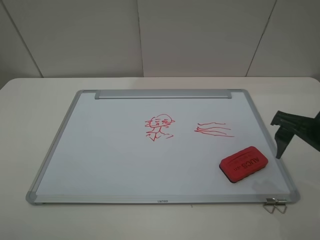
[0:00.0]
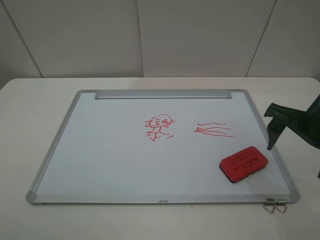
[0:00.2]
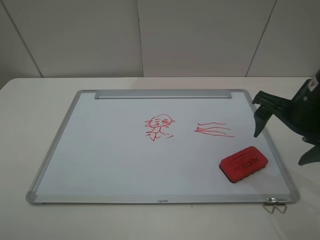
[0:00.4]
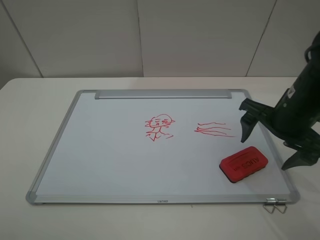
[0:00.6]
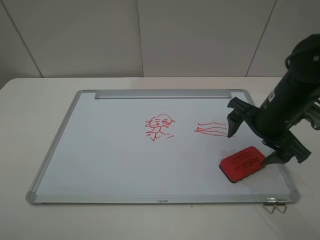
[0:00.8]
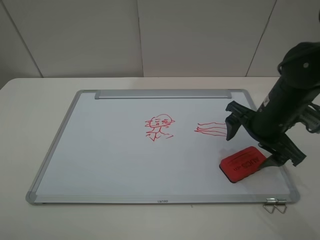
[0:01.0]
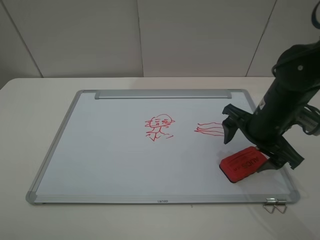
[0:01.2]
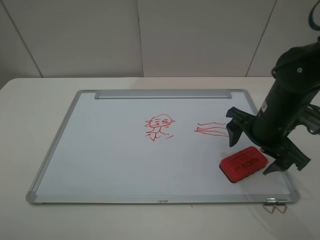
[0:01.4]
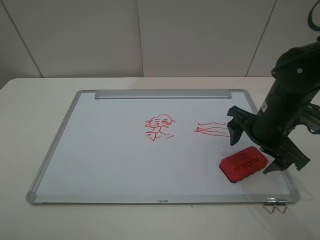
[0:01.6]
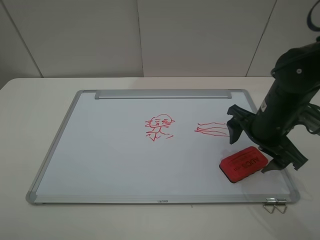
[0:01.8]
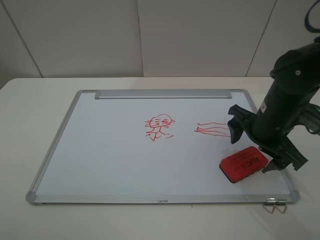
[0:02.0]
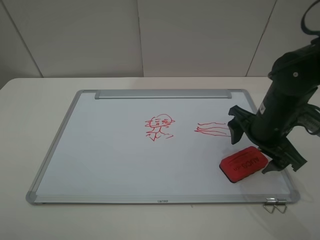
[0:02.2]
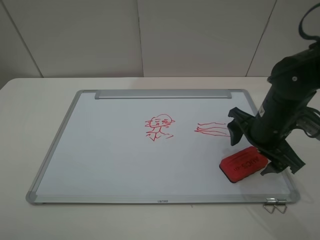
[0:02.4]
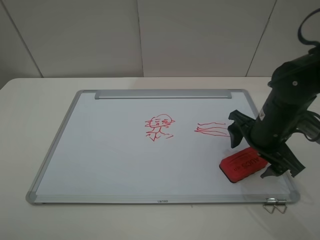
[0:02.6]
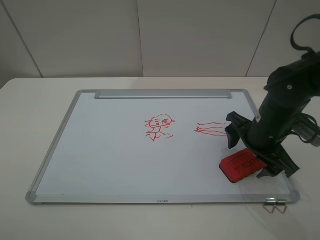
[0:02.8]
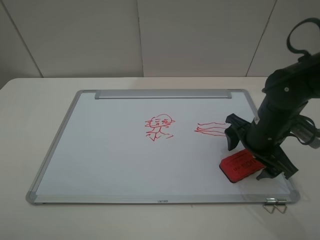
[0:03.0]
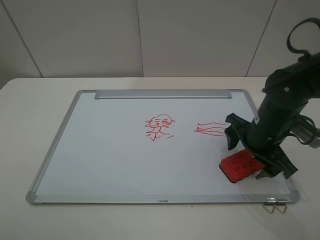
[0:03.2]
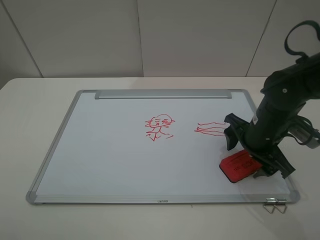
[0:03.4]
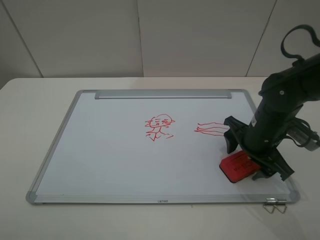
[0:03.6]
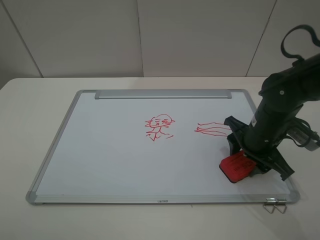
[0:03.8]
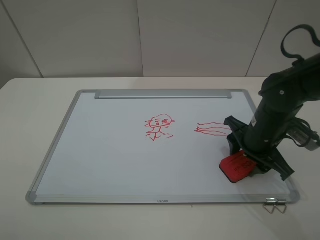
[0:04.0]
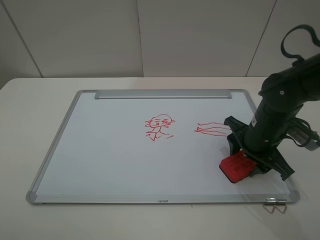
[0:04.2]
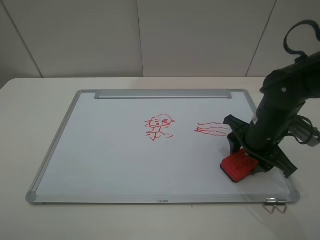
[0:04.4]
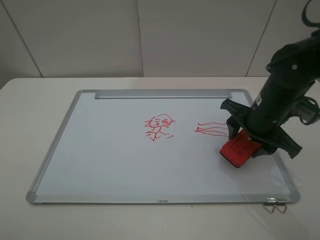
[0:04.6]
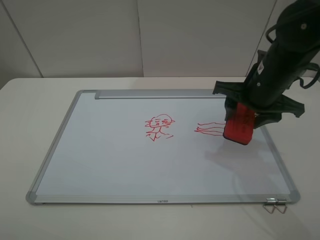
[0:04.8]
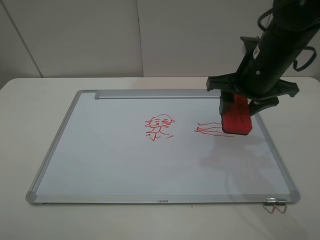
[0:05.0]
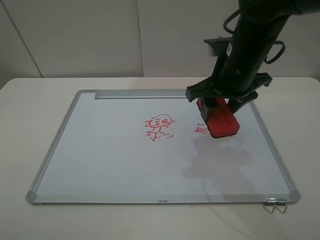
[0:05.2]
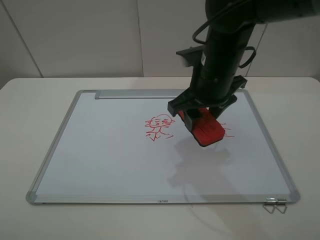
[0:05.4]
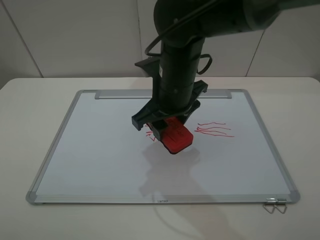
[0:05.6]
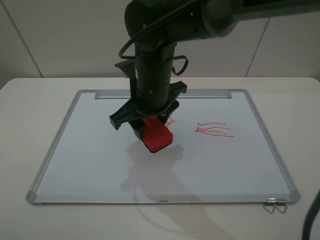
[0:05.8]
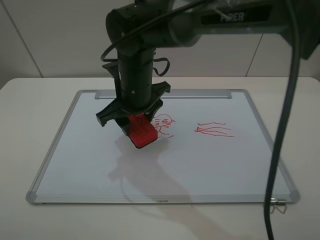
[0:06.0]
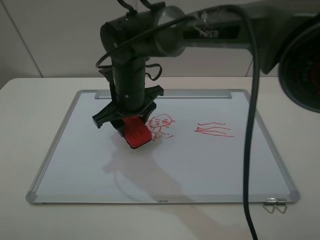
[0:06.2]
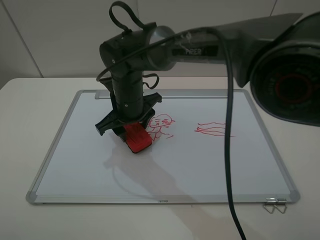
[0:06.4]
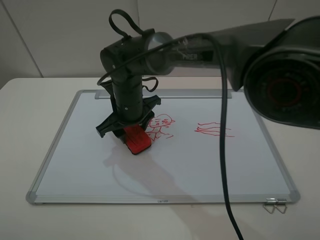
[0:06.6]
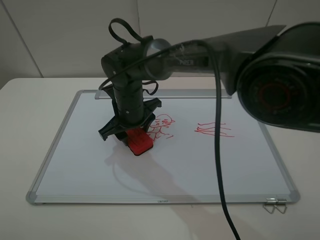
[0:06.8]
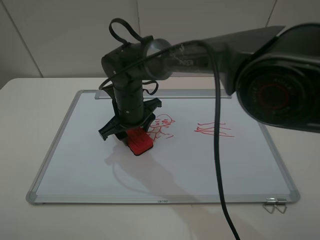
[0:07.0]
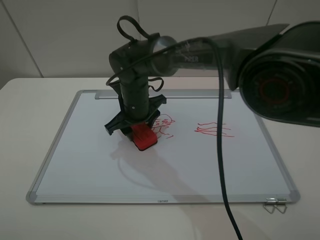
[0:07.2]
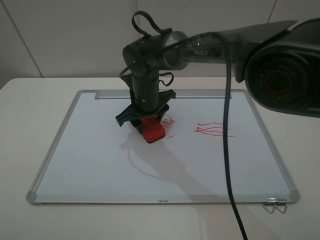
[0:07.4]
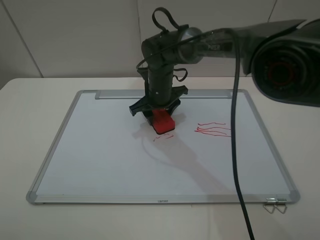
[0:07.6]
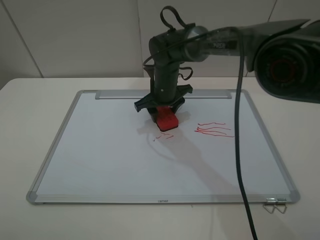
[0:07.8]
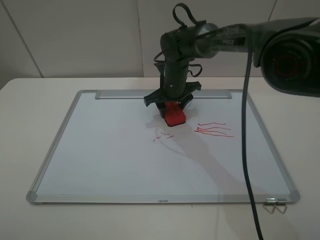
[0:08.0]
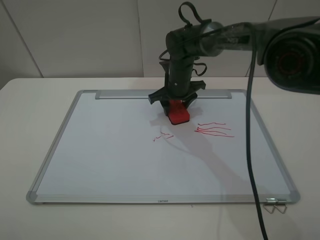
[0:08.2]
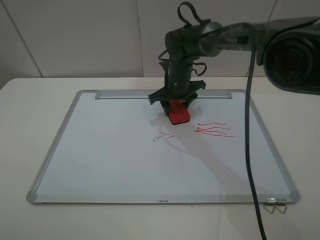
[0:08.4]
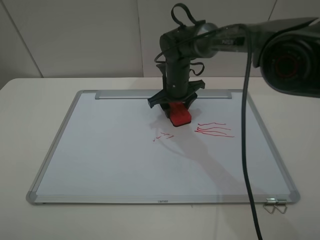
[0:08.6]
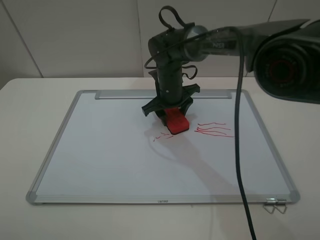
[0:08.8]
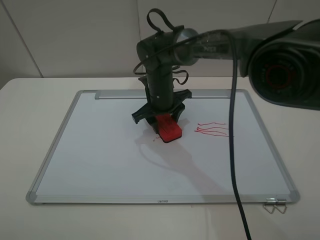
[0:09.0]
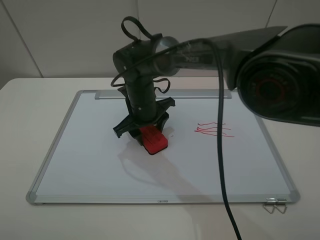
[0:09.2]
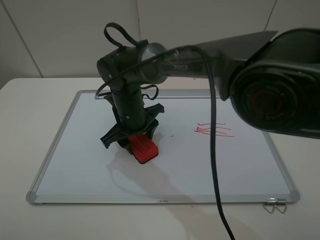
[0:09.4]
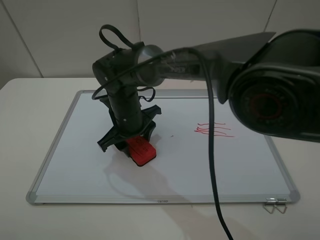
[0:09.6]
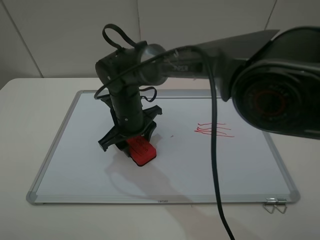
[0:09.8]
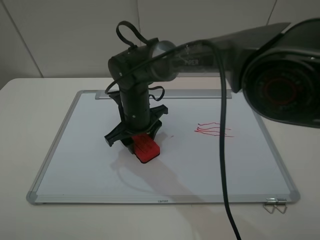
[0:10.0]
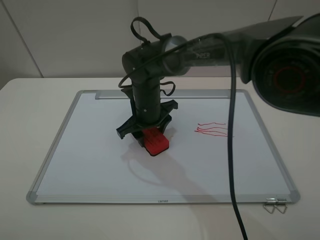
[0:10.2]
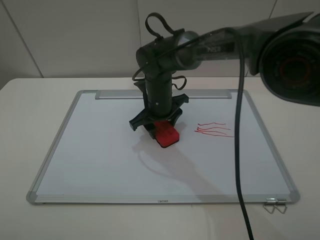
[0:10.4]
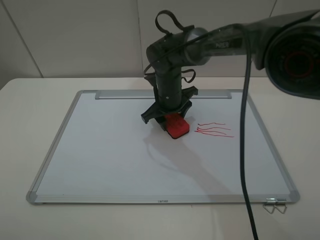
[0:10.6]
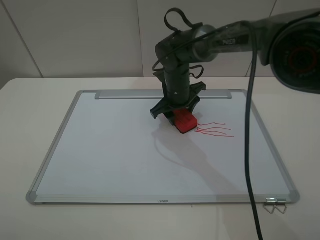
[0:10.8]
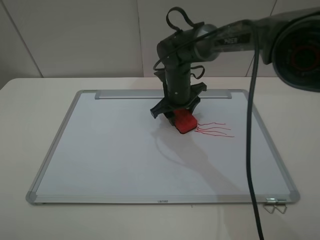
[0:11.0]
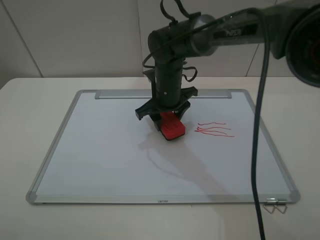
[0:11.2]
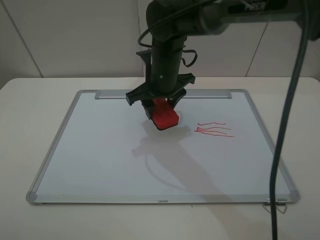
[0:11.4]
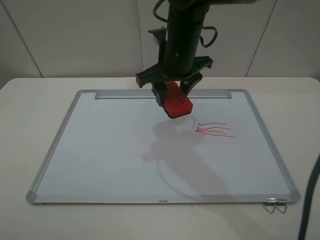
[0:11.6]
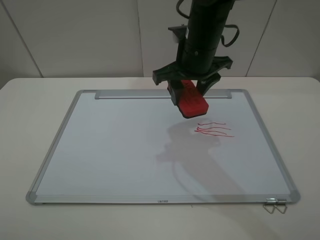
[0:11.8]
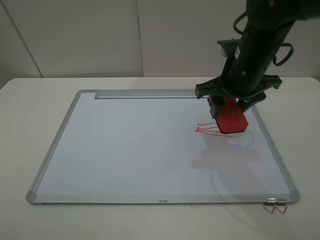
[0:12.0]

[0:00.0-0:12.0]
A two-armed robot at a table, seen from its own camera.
Step, 0:00.0 to 0:03.8: Grasp the eraser with the right gripper.
Step, 0:04.0 to 0:11.4: Grasp the eraser and wipe the blackboard with the right gripper.
0:00.0 to 0:01.6: The right gripper is displaced forward and downward by approximately 10 cm.
0:01.6 to 0:03.0: There are only small adjustments of the grippers.
0:03.0 to 0:04.4: The right gripper closes.
0:04.4 to 0:06.0: The right gripper is displaced to the left by roughly 25 cm.
0:06.0 to 0:07.6: The right gripper shifts some 15 cm forward, downward and to the right.
0:07.6 to 0:09.0: The grippers move only a little.
0:09.0 to 0:10.4: The right gripper moves roughly 5 cm to the left and comes back.
0:10.4 to 0:12.0: The right gripper shifts some 20 cm to the right, upward and backward.

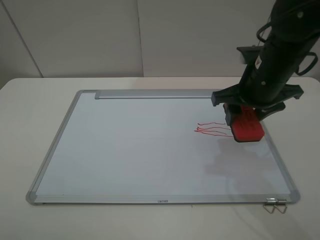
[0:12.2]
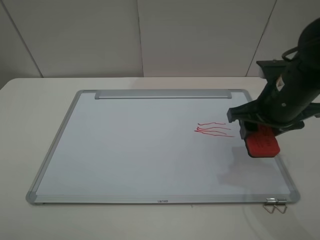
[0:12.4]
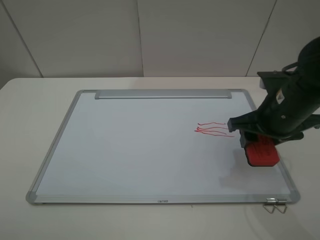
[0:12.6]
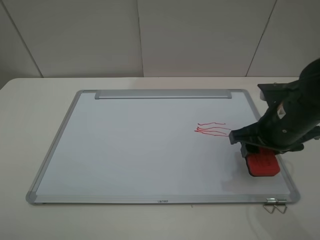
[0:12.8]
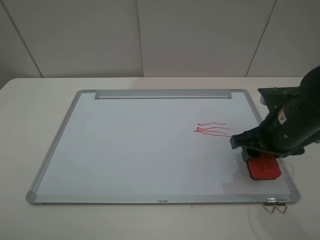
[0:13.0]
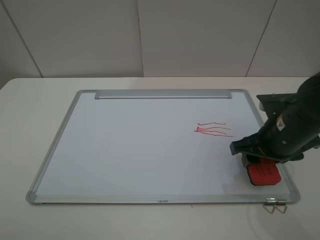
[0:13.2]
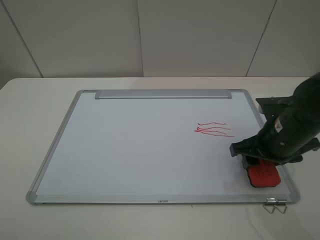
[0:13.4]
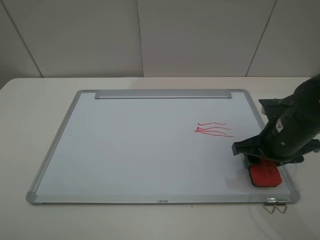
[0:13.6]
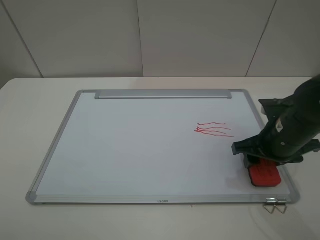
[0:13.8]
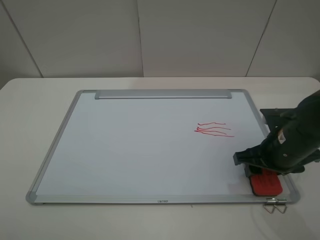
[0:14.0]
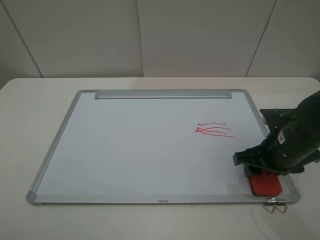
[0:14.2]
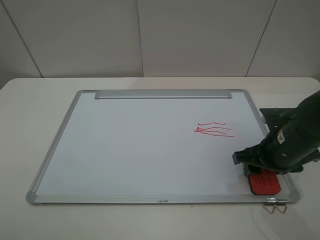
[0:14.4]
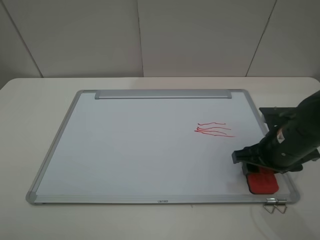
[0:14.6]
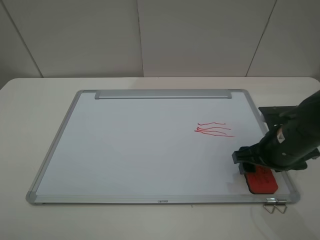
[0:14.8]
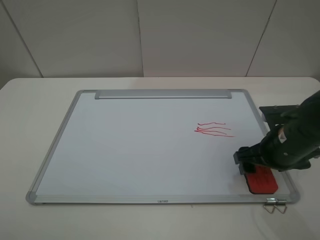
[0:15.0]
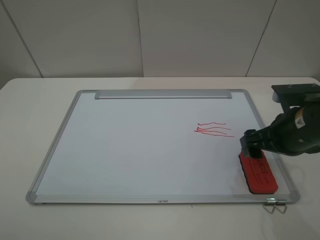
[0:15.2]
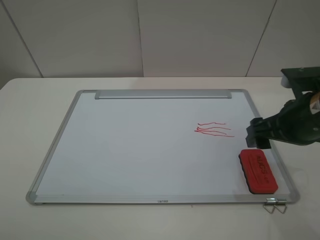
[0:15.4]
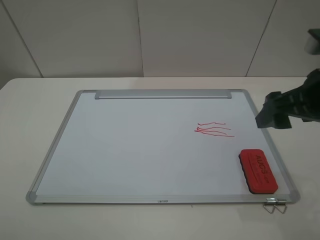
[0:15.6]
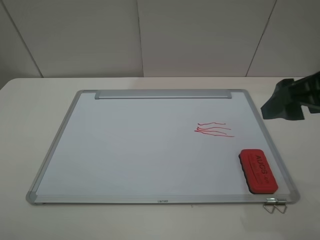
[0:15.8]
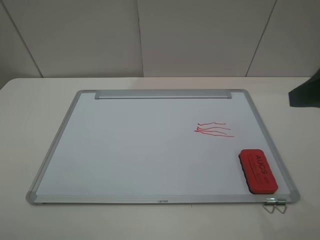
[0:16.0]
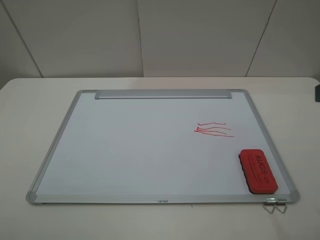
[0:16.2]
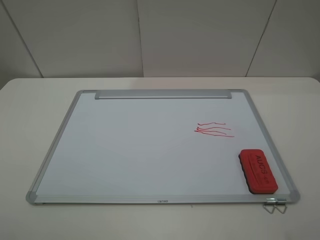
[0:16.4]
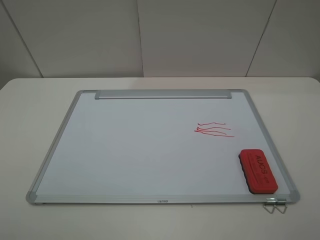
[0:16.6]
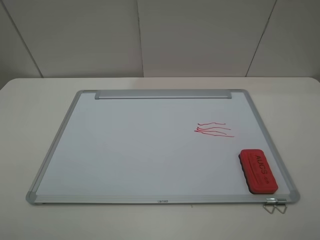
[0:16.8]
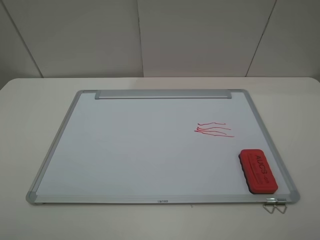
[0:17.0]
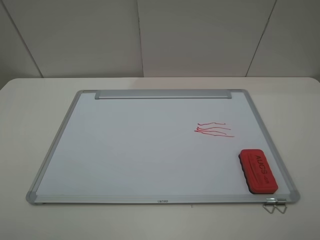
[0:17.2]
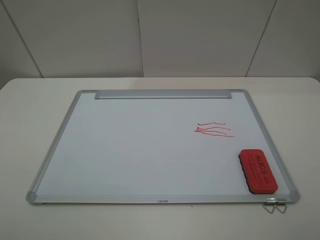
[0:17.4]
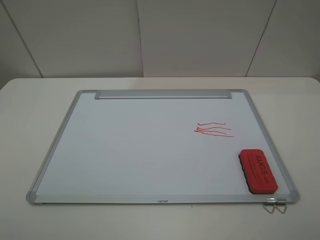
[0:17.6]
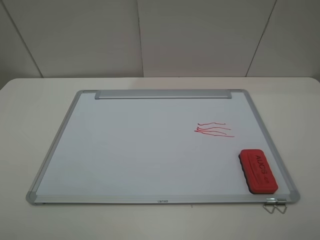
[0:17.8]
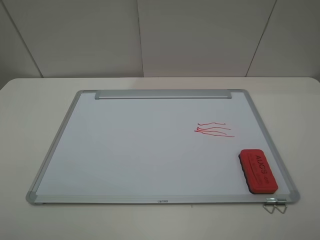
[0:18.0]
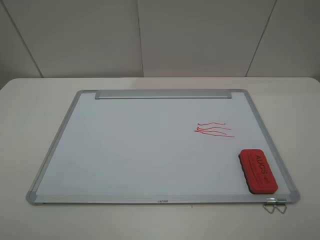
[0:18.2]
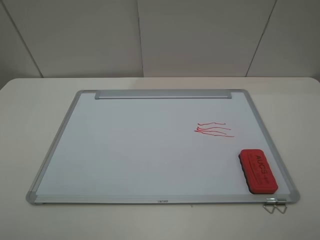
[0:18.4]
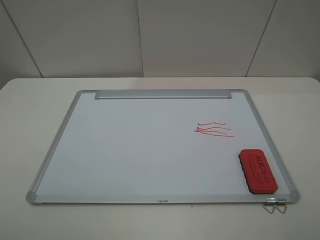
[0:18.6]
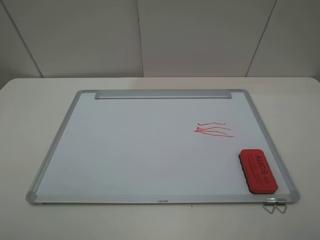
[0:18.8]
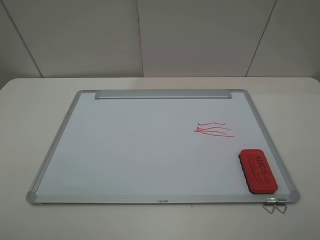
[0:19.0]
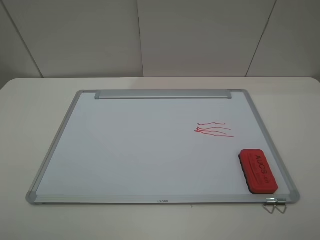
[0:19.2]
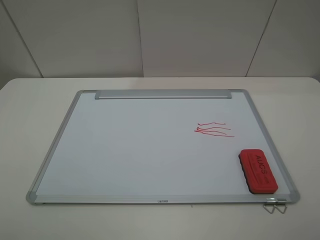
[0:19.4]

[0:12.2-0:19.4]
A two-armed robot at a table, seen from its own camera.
Step, 0:12.2 to 0:15.0: Place the eraser with the right gripper.
0:12.2 to 0:13.6: The right gripper shifts roughly 10 cm downward.
0:13.6 to 0:15.0: The right gripper opens.
0:15.0 to 0:16.6: The right gripper moves upward and backward, approximately 25 cm.
0:18.0 to 0:19.4: The two grippers keep their place.
